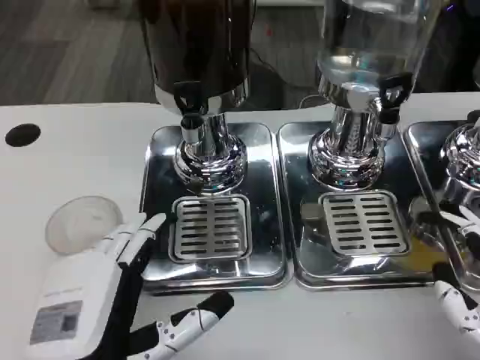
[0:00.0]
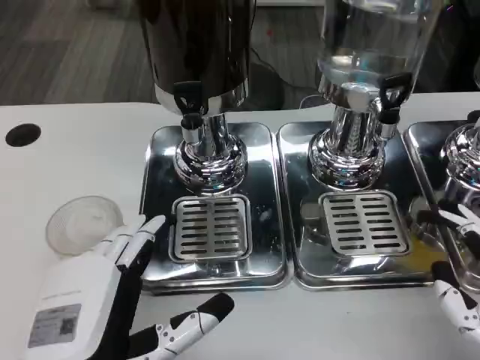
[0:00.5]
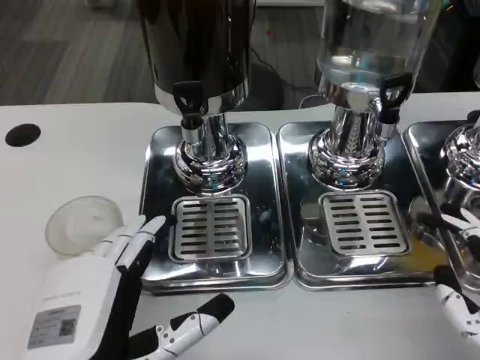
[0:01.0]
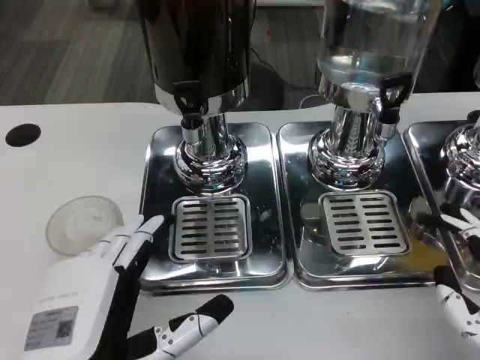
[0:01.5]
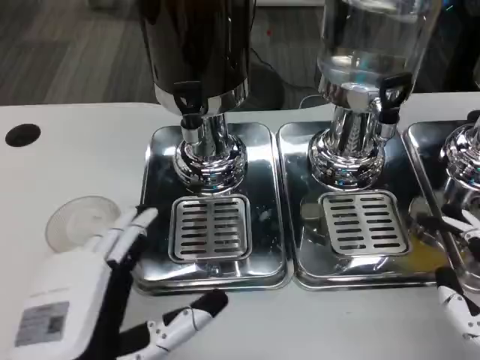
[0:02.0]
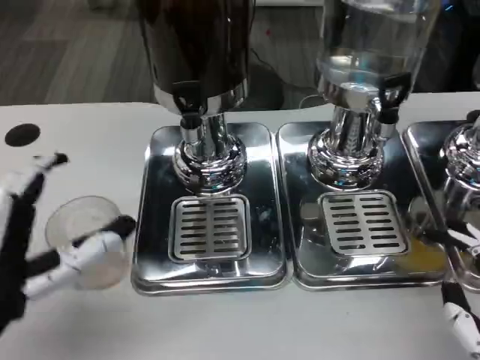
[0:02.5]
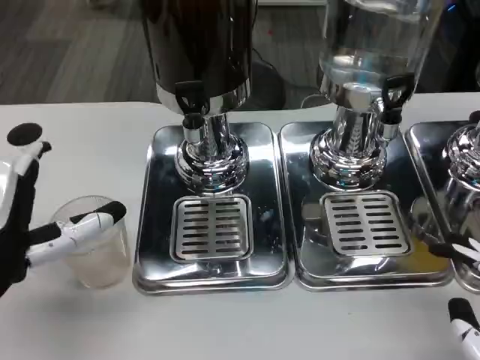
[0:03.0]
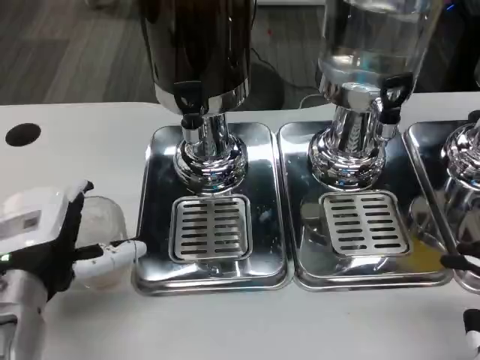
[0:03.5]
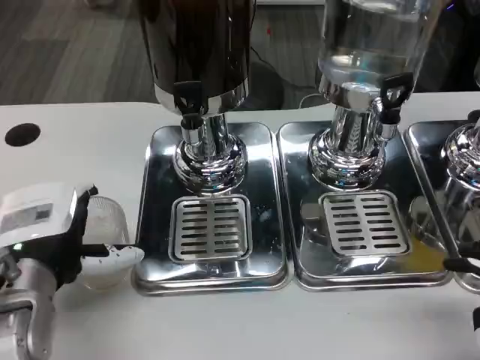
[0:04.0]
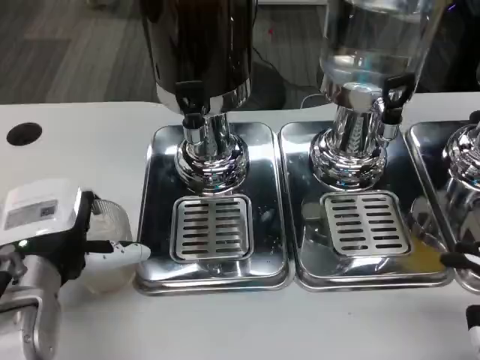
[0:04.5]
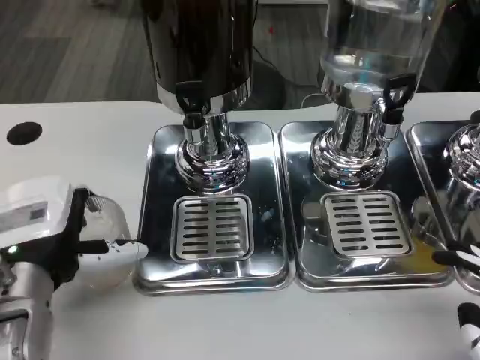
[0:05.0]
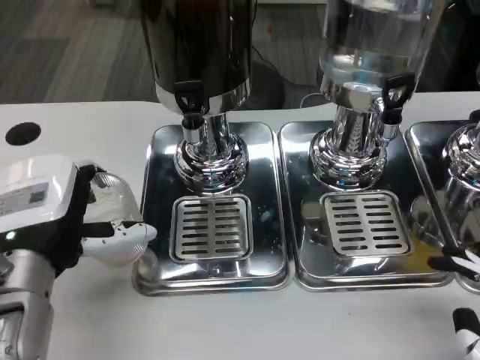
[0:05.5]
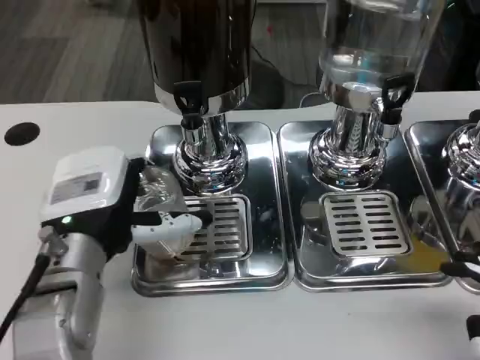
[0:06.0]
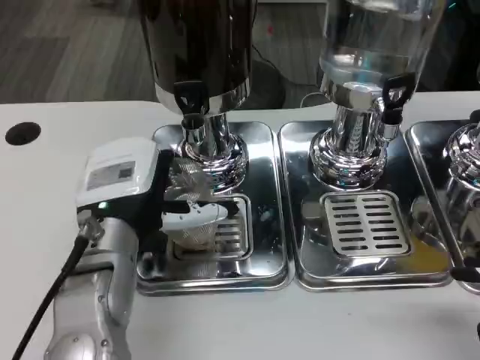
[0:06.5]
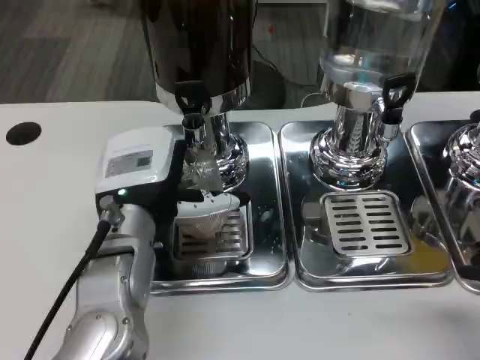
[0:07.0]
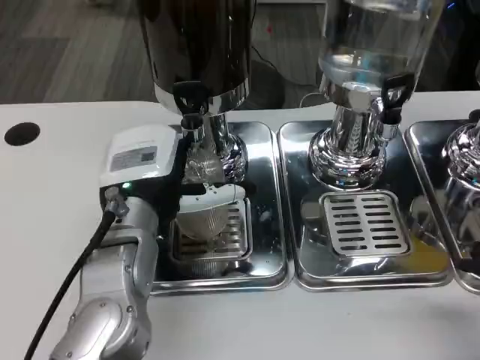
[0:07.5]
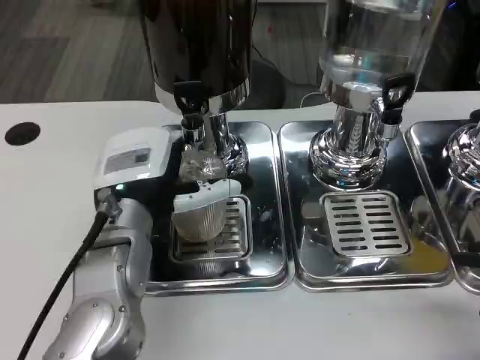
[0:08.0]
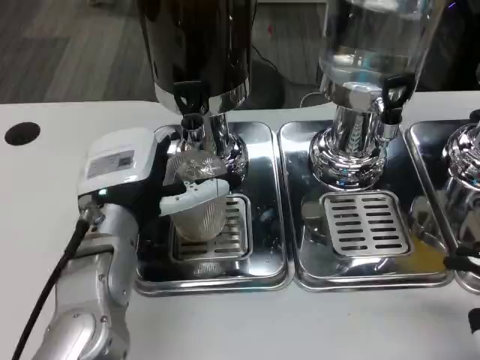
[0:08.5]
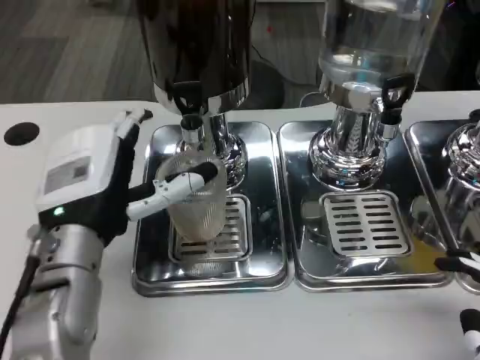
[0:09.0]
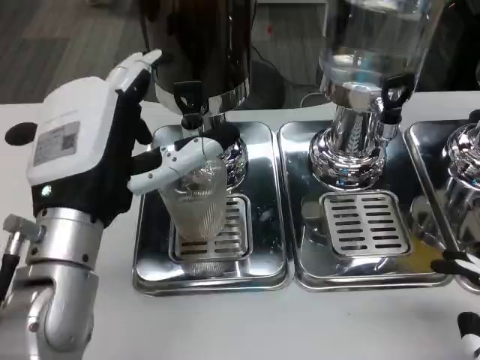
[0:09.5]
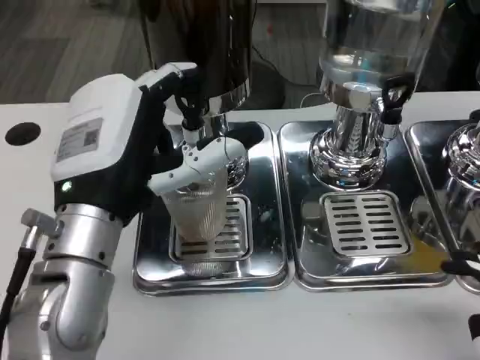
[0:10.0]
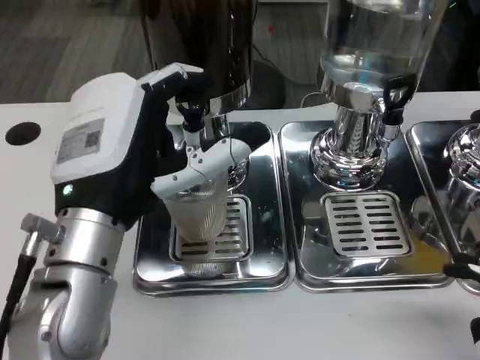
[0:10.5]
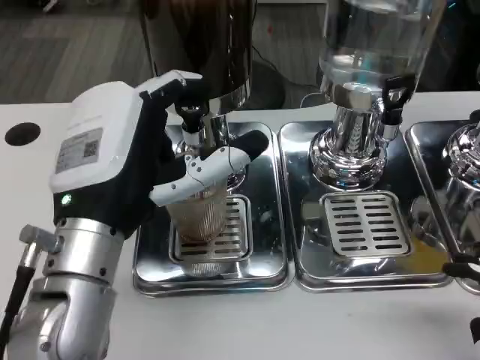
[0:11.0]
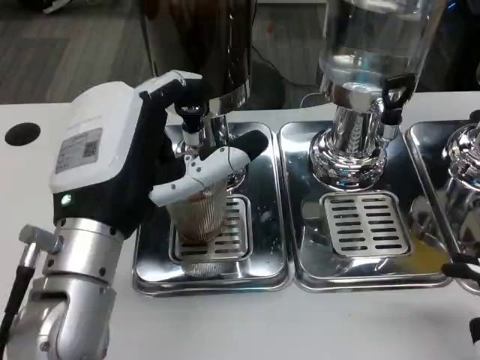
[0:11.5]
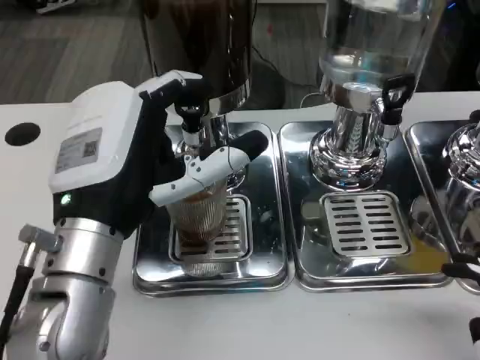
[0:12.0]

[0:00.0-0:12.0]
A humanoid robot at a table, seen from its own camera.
Task of the whole recording: Grasp the cup under the faucet to collect the drink, then remove the cup.
0:00.0 to 0:02.0: Both hands stay put.
0:02.0 to 0:04.0: The left hand heads forward, covering some 10 cm.
0:04.0 to 0:06.0: The hands move only a little.
0:06.0 to 0:08.0: The left hand changes place by approximately 5 cm.
0:08.0 to 0:10.0: The left hand heads backward, covering about 5 cm.
0:10.0 to 0:12.0: The two hands keep their place.

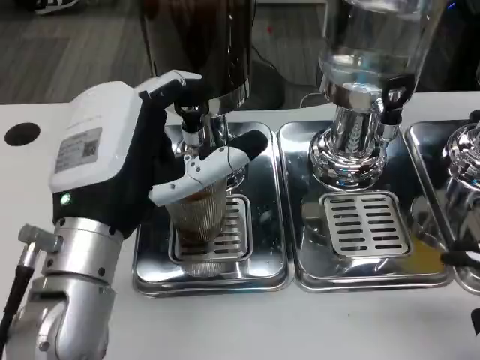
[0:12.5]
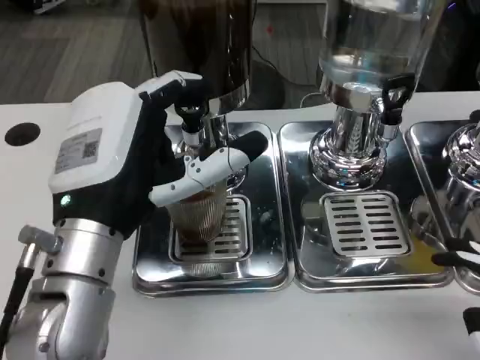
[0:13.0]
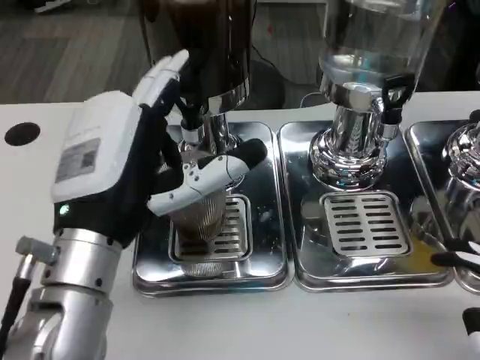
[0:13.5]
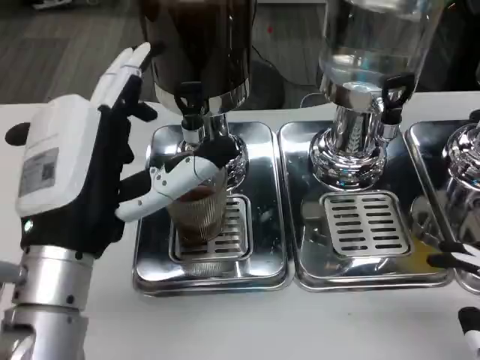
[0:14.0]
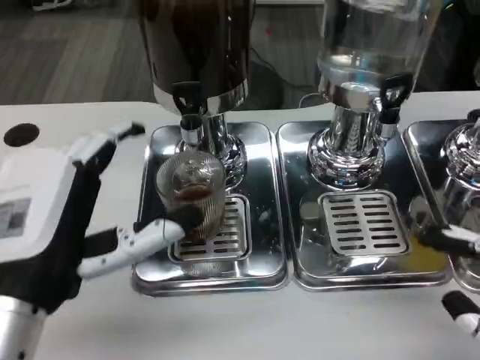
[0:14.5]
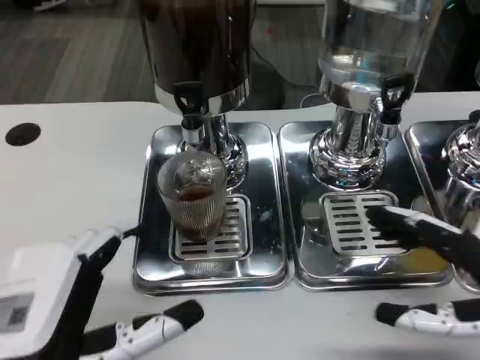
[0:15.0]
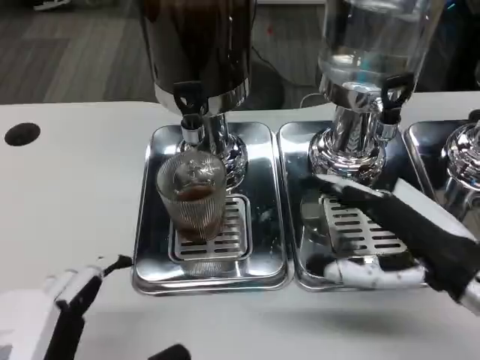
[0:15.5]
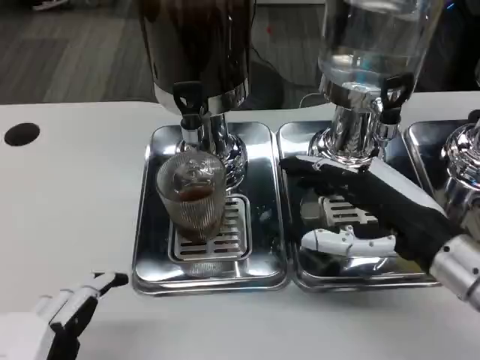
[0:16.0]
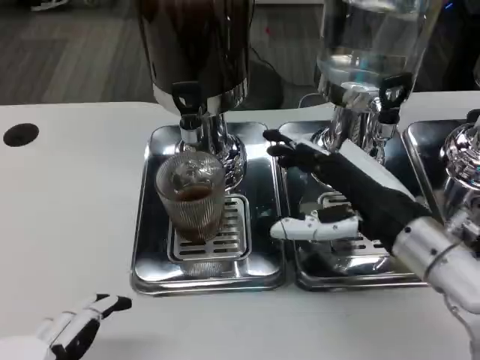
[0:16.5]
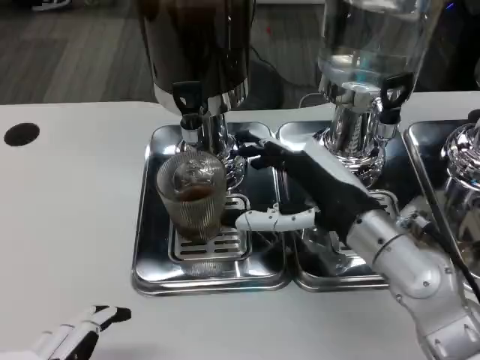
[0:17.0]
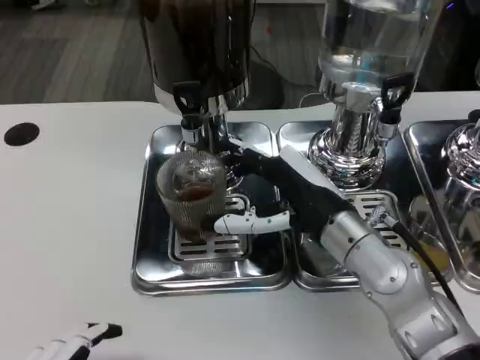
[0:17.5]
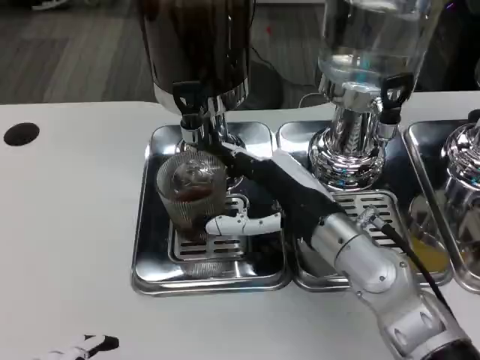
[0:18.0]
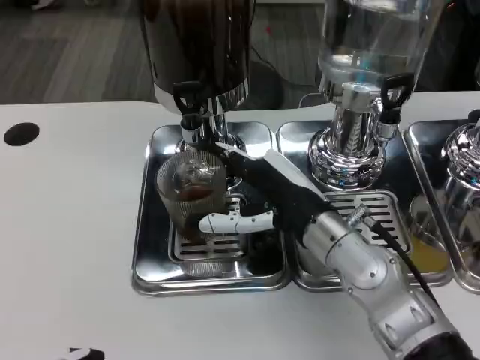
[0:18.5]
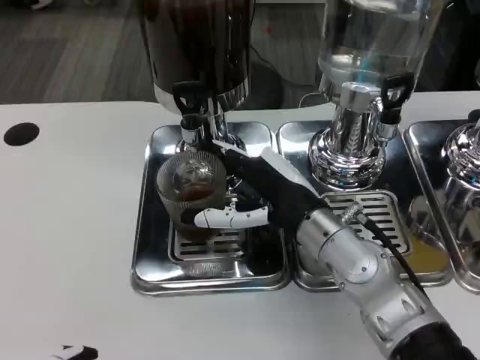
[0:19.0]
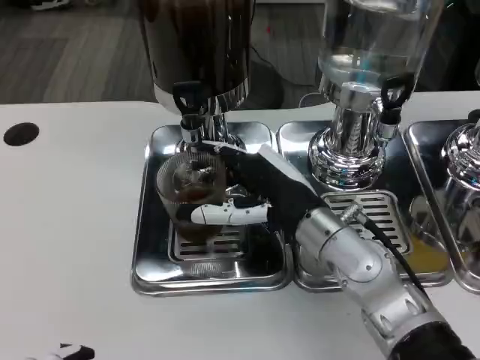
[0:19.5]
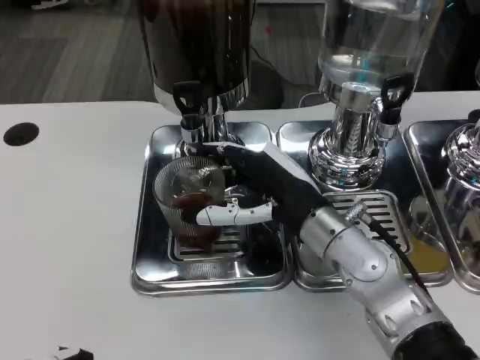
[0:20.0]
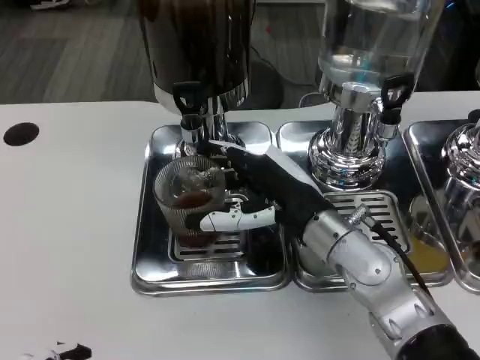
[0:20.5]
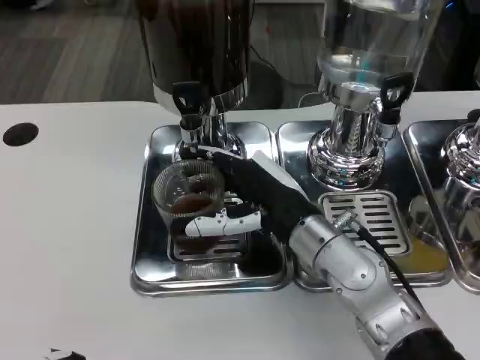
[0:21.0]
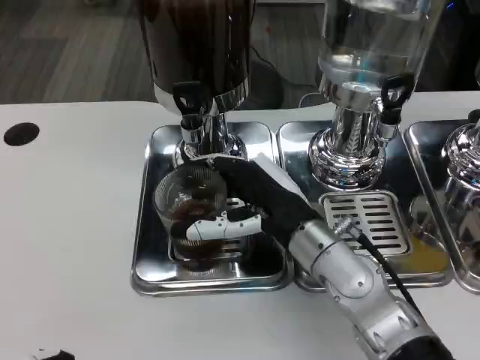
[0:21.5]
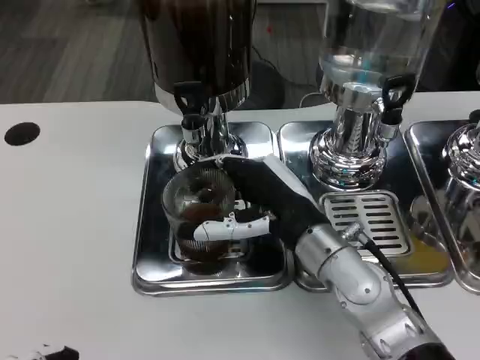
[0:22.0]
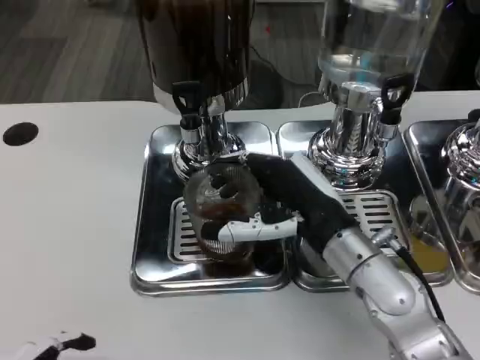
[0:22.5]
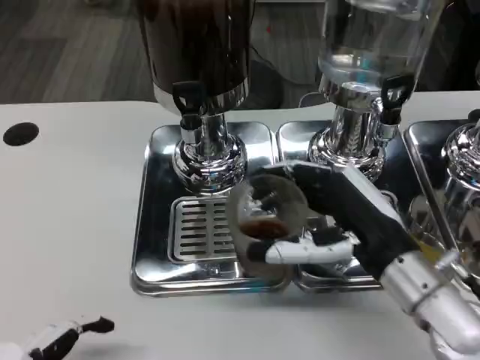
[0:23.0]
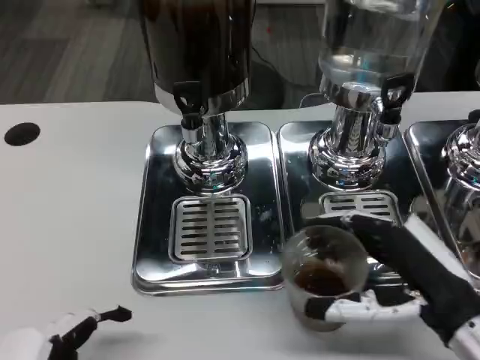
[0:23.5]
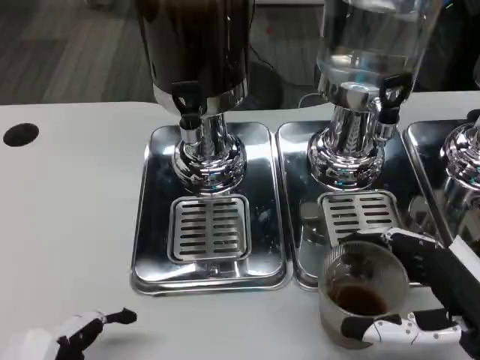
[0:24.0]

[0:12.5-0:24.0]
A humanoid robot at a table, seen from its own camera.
Task of the whole recording: Grasp the cup under the faucet to collect the drink, then remove the cup.
0:12.5 to 0:14.5: The left hand goes some 5 cm backward.
0:14.5 to 0:16.5: The left hand is displaced backward by approximately 10 cm. The right hand travels forward and to the left by roughly 20 cm.
0:16.5 to 0:18.5: The right hand travels to the left by approximately 10 cm.
0:18.5 to 0:22.0: The hands move only a little.
0:22.0 to 0:24.0: The right hand moves to the right and backward, approximately 20 cm; the left hand shifts by some 5 cm.

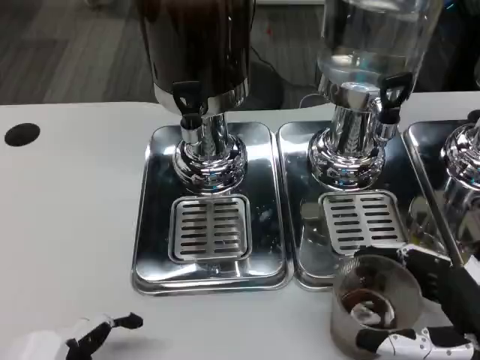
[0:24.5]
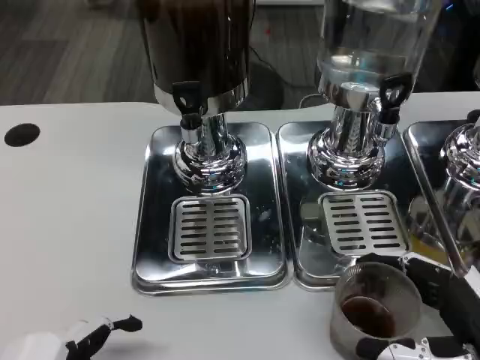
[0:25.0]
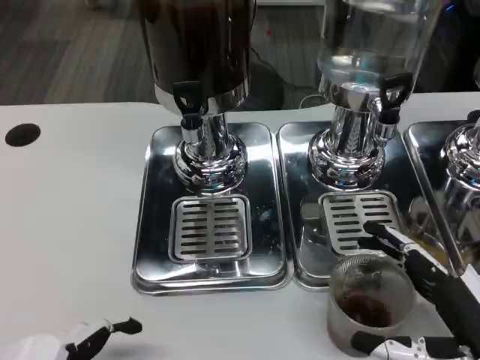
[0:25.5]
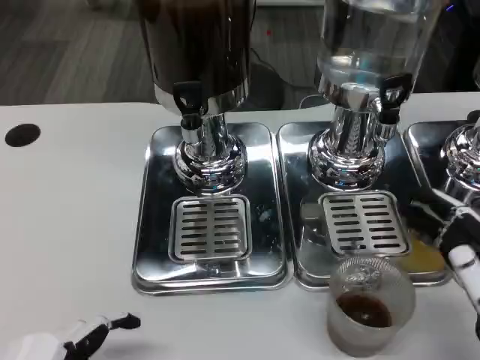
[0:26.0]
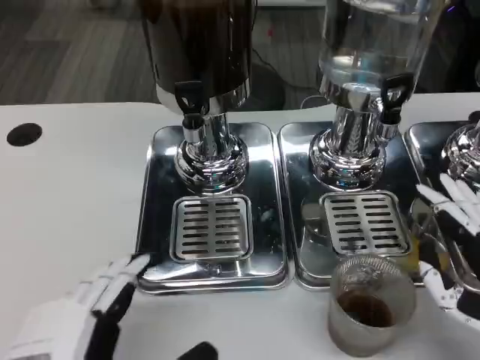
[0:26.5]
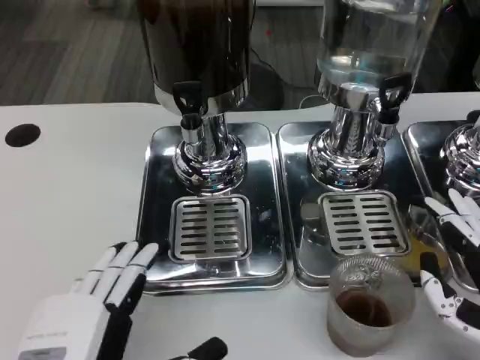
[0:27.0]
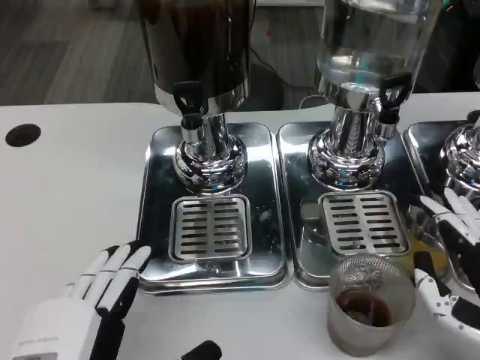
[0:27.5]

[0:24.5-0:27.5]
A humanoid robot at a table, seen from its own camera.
Task of the whole recording: Grasp the cup under the faucet to collect the drink, then remove the cup.
0:24.5 to 0:26.0: The hands make only small movements.
